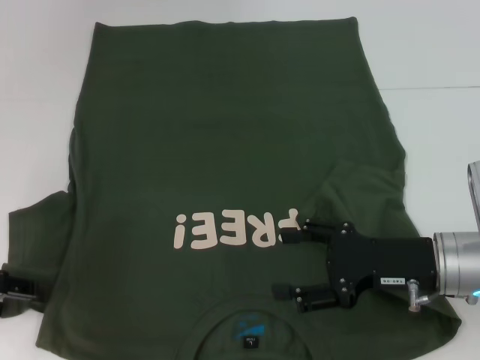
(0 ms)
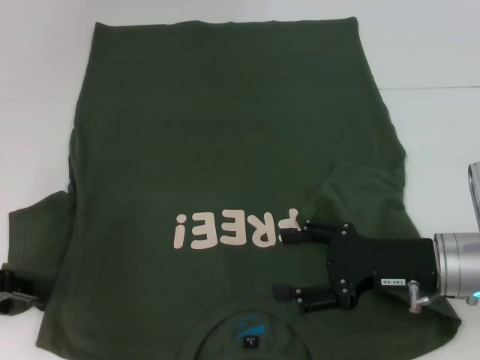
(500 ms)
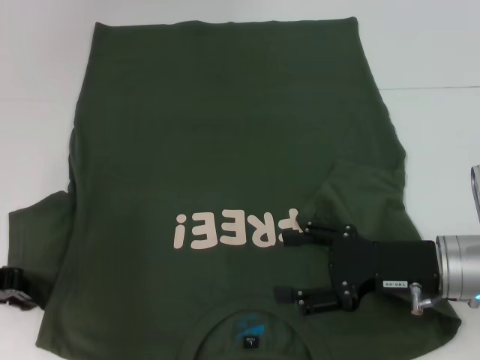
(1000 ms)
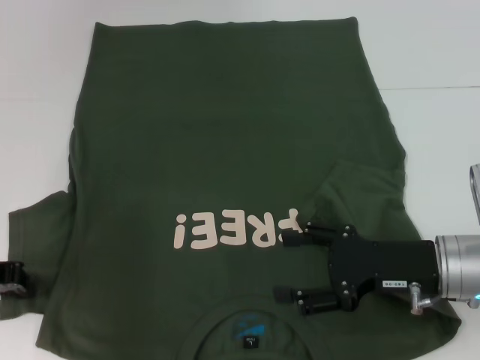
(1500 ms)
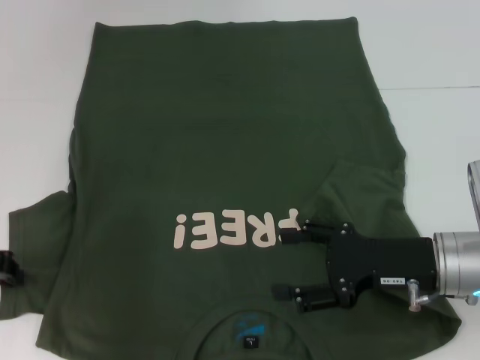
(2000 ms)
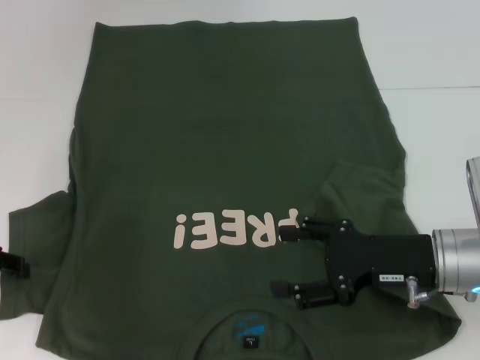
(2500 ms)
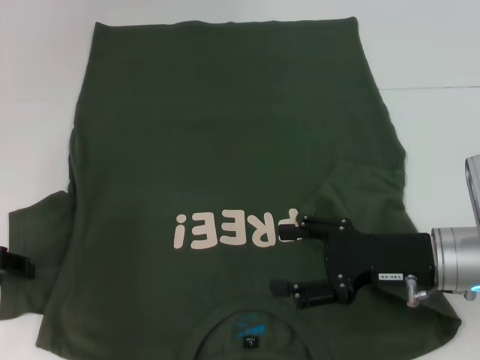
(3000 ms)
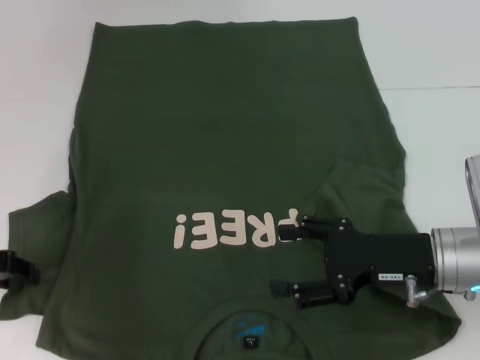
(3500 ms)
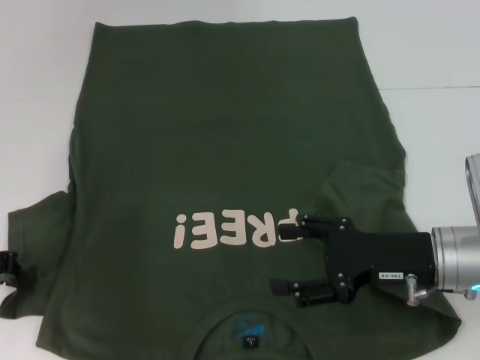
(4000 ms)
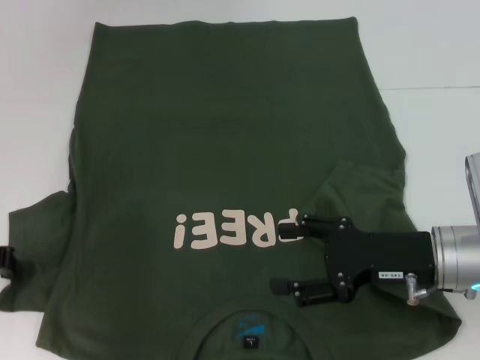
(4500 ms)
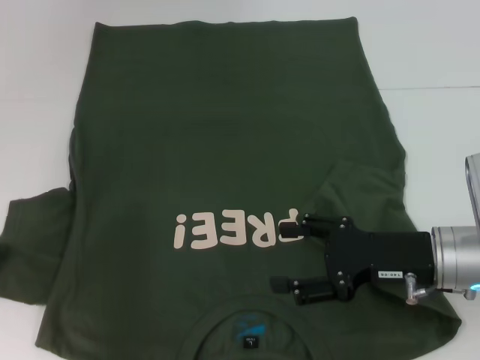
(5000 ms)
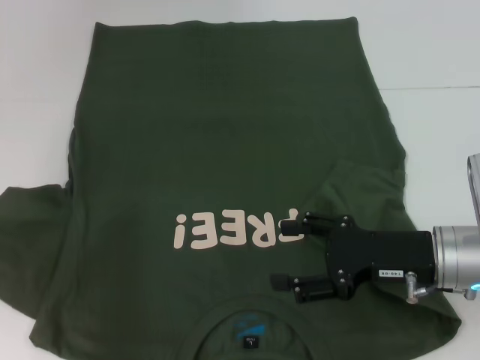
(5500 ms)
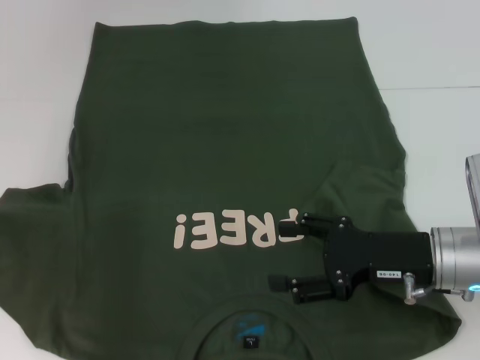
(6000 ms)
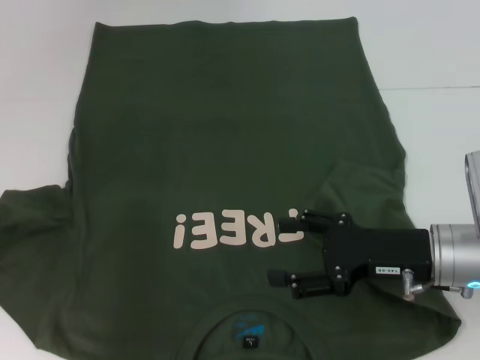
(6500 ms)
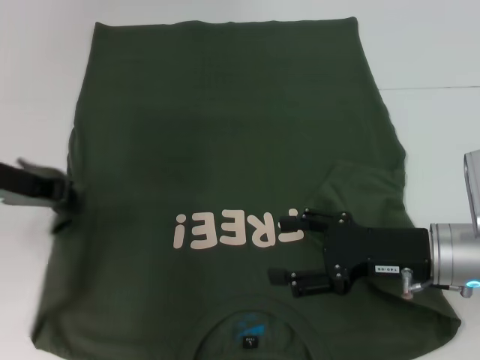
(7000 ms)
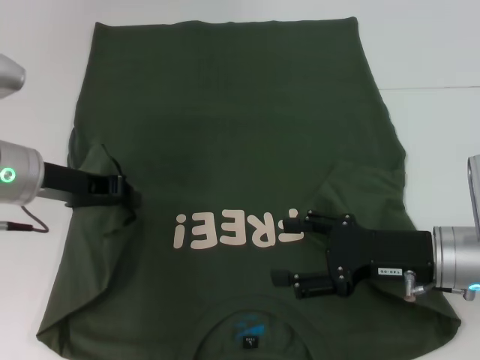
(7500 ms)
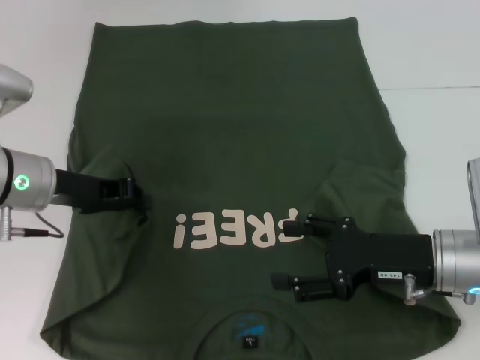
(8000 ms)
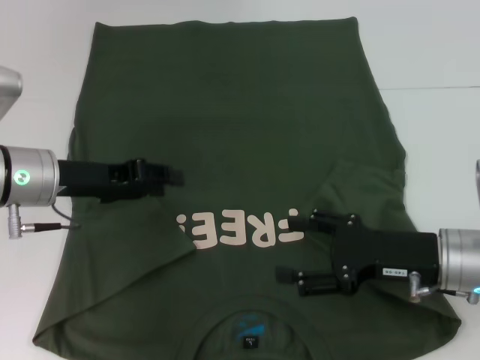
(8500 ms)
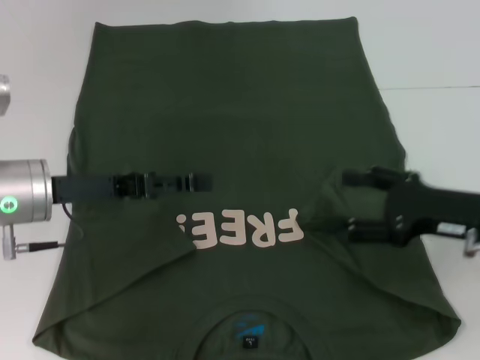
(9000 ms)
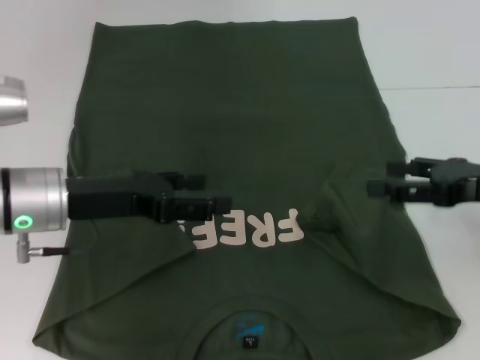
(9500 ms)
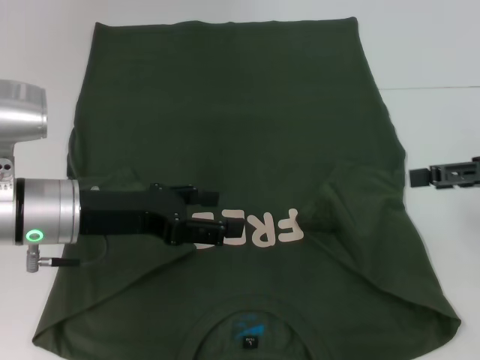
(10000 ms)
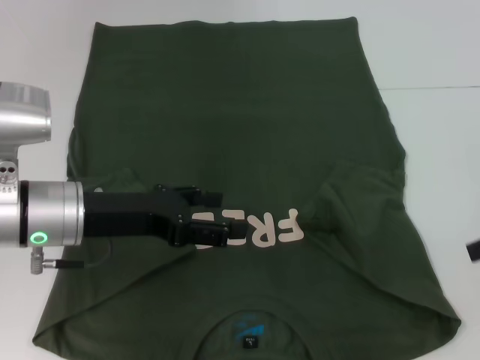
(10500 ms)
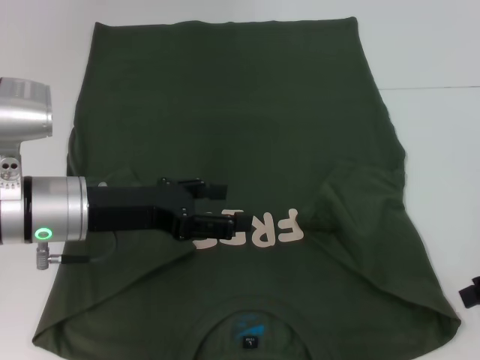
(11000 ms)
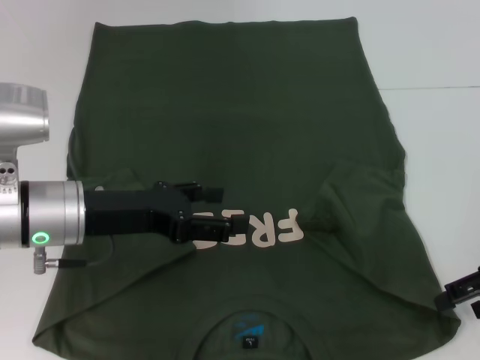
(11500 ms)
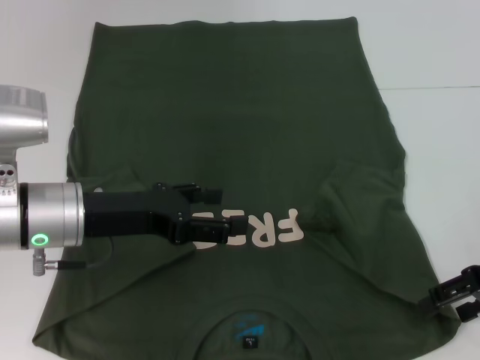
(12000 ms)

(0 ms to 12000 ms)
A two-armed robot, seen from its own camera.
Step, 0 ms - 8000 ms: Fold the bottom left sleeve with your left hand.
0 ms - 2000 ms: The left gripper closes up.
2000 ms - 4000 ms: The left gripper opens, then closes again.
4000 ms - 6000 ms: The left gripper shifts by approximately 5 cm.
6000 ms - 8000 ms: The left gripper travels to the right by some 15 cm.
8000 ms - 10000 ms: The right gripper is displaced to the right and upward by about 15 cm; the left gripper changes place by about 5 cm, and opens up.
10000 ms - 12000 ms: The right gripper is displaced downward by about 5 cm.

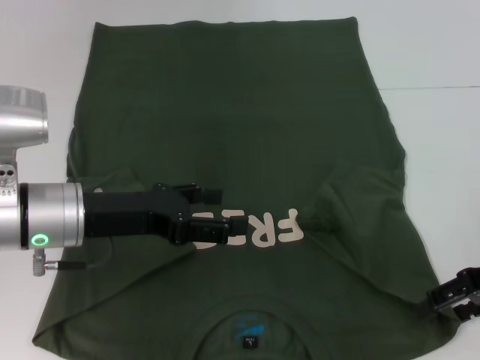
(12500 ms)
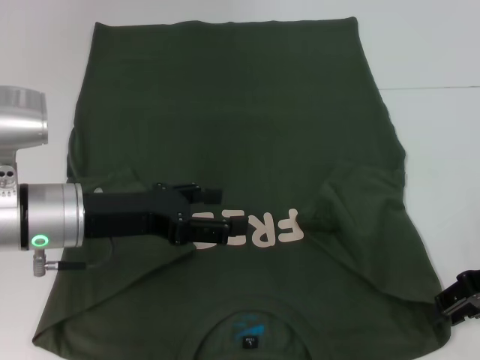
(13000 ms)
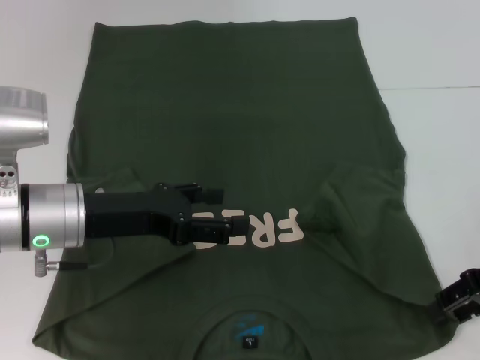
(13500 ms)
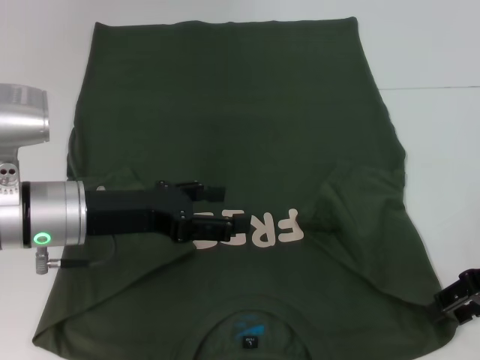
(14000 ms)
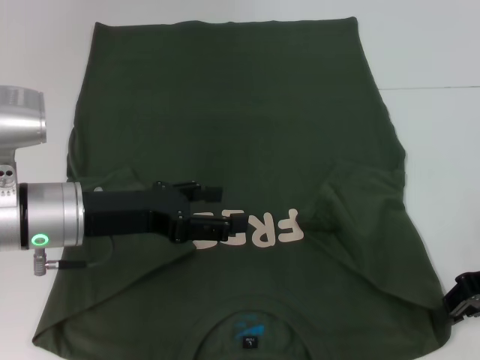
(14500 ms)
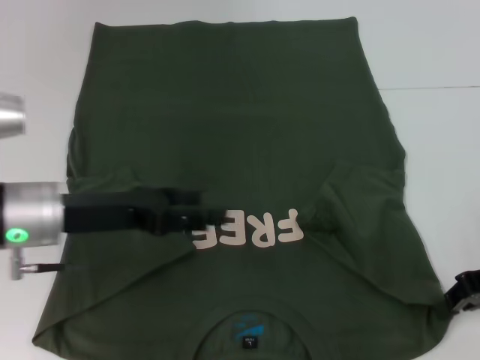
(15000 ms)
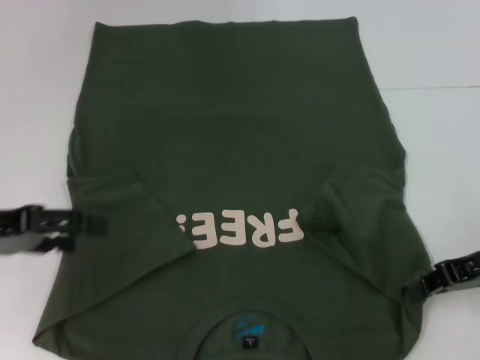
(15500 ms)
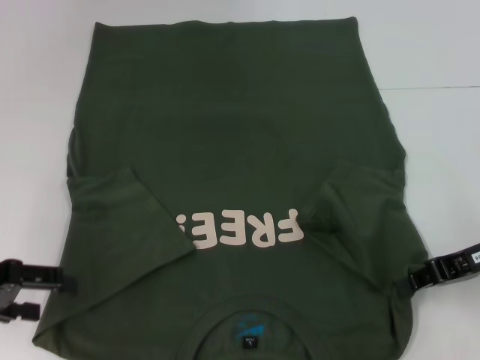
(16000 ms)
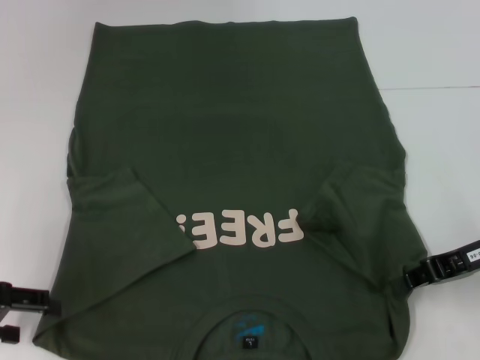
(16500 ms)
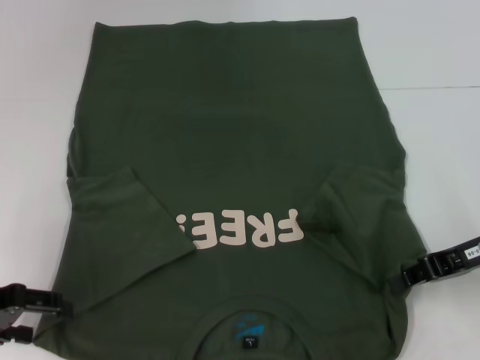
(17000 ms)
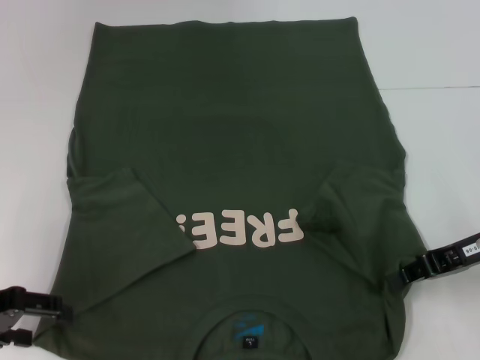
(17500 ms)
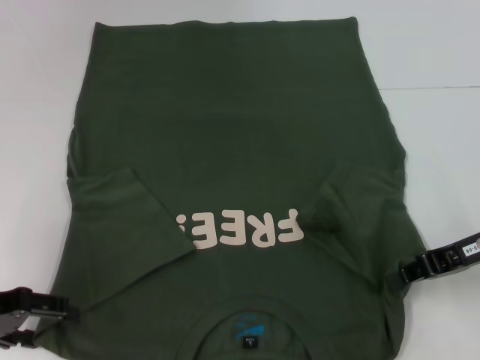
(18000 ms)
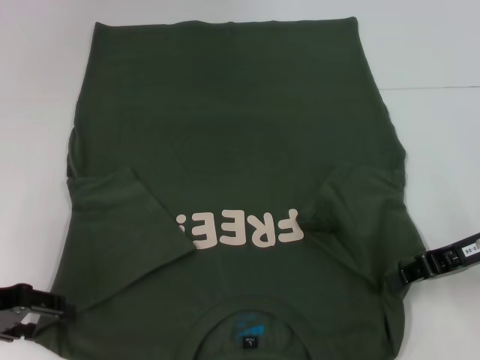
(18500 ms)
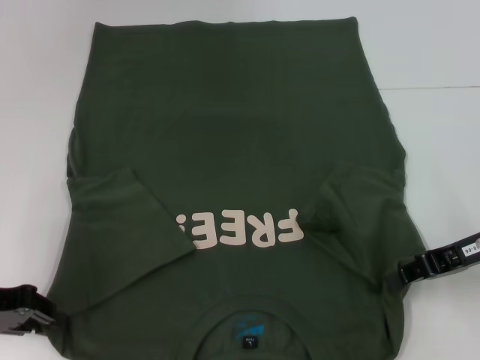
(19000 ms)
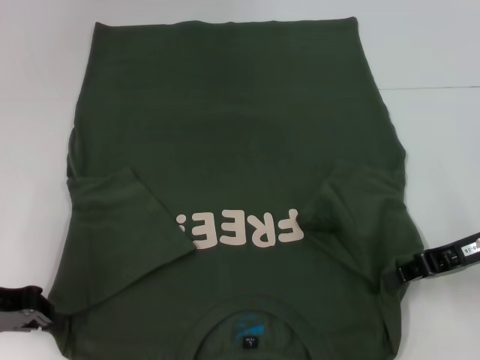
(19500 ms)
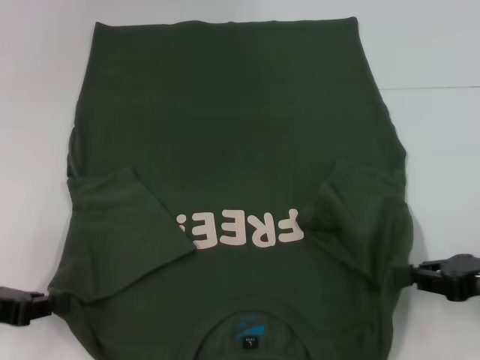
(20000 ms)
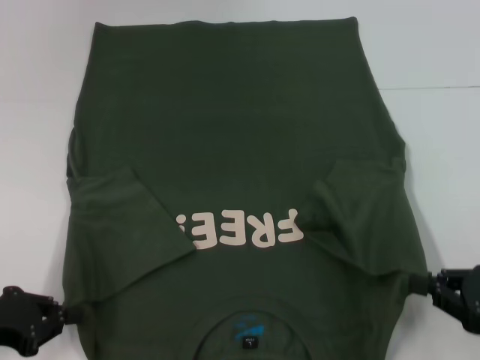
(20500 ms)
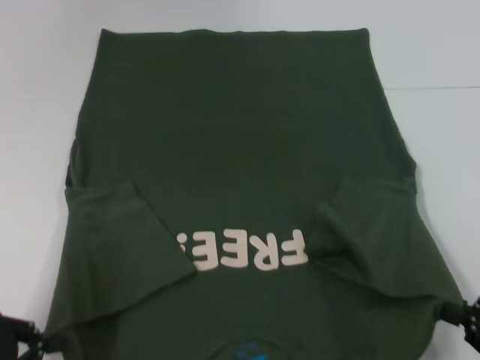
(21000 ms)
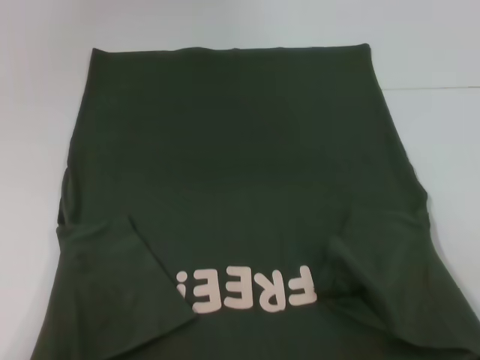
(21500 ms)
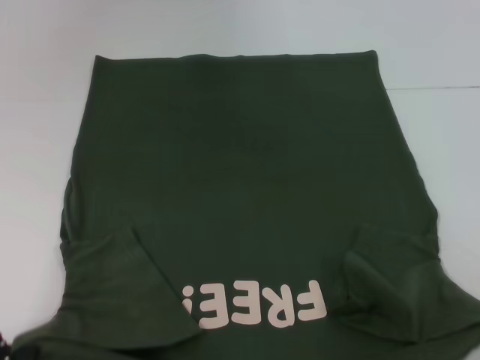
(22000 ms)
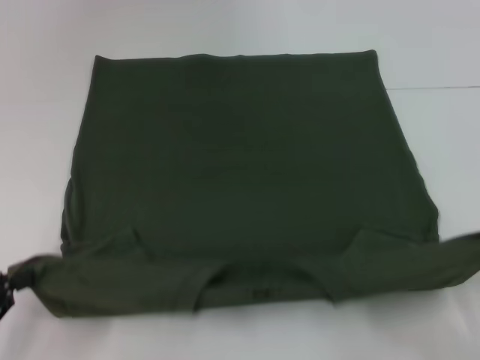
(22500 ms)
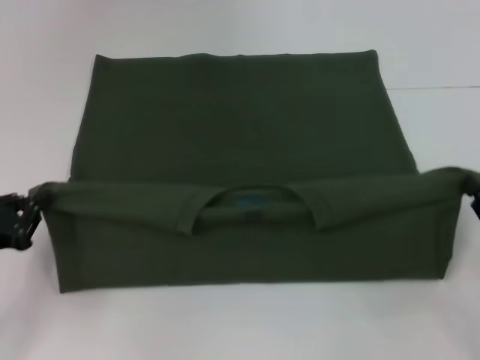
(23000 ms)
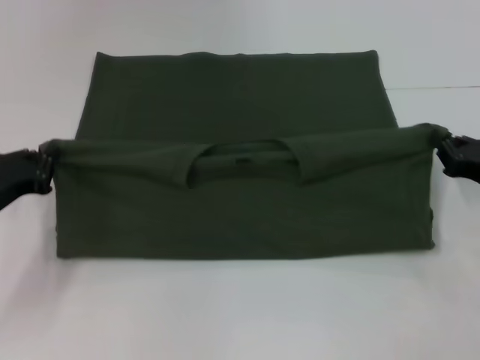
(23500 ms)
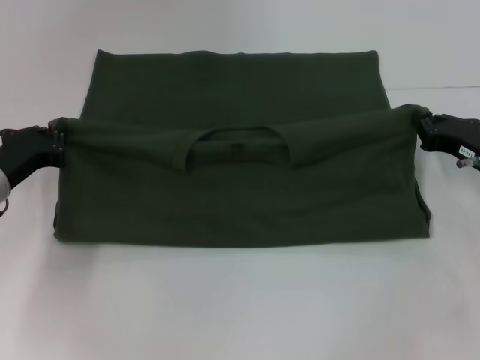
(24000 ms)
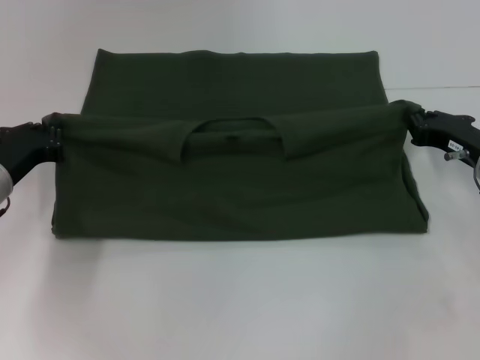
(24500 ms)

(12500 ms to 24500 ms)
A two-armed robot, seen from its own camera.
Step, 12500 ms - 14500 ms: Grab the bottom right corner with your right hand.
Step, 15000 ms - 20000 ms: Grab the bottom left corner with your left hand.
12500 ms - 14500 ms: The right gripper closes its fingers.
14500 ms - 16500 ms: The left gripper goes roughly 15 cm to the left; the right gripper closes.
16500 ms - 18500 ms: The grippers make only small movements.
18500 ms - 20500 ms: The left gripper ends up about 5 cm from where it was, and closes up; the right gripper moves backward and downward, approximately 15 cm.
20500 ms - 22500 ms: The right gripper travels backward by some 5 cm.
22500 ms - 24500 ms: The right gripper moves forward, about 25 cm. Meanwhile the left gripper travels forward and to the right by roughly 20 cm.

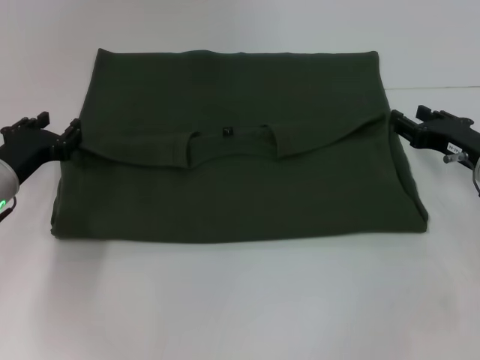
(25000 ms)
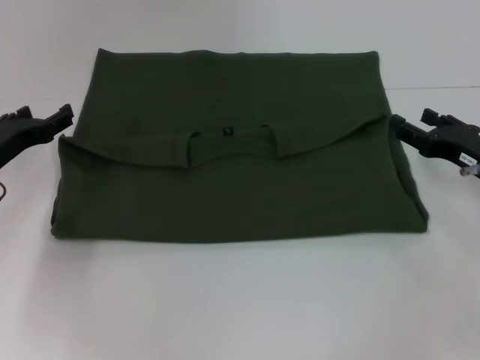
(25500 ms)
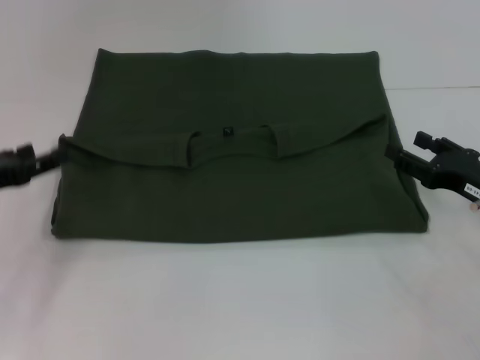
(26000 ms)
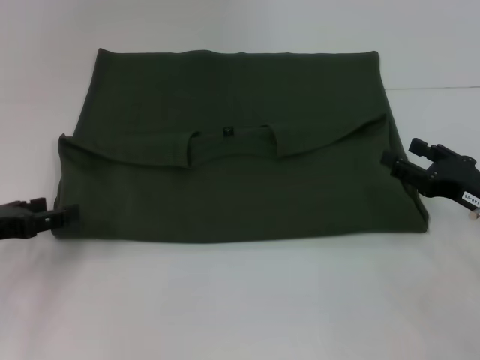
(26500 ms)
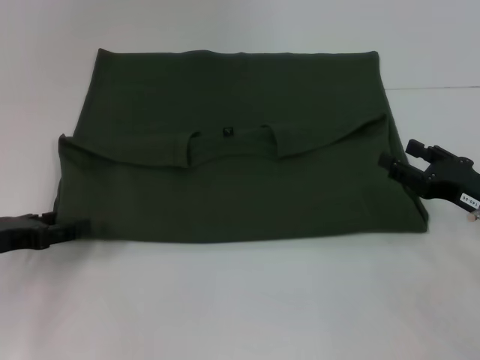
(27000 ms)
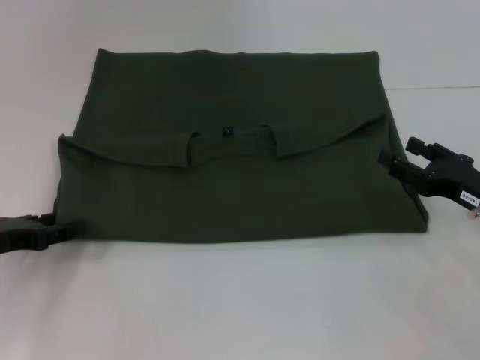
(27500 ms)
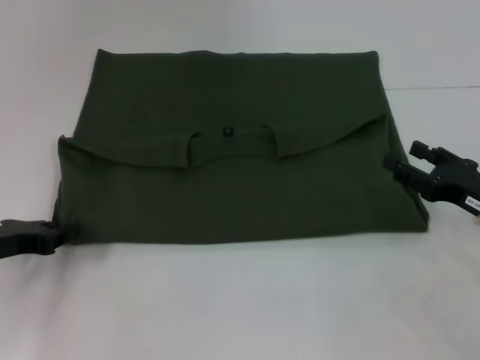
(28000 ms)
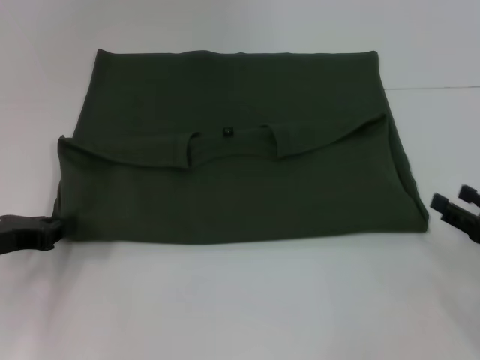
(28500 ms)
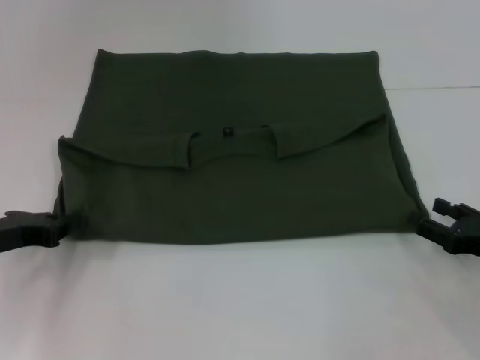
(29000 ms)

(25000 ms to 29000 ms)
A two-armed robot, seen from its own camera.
25000 ms - 27000 ms: The right gripper heads backward, covering about 5 cm, and opens. The left gripper shifts about 10 cm backward and to the left, and opens.
27000 ms - 29000 ms: The right gripper moves roughly 5 cm; the left gripper closes its fingers.
